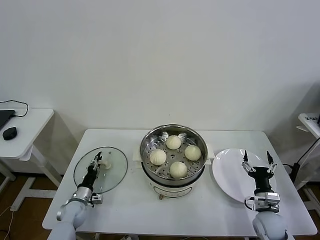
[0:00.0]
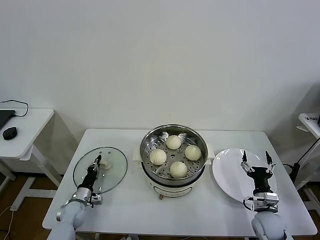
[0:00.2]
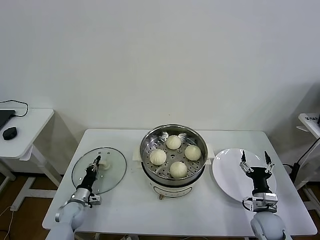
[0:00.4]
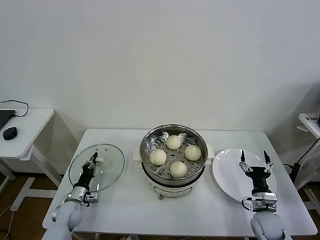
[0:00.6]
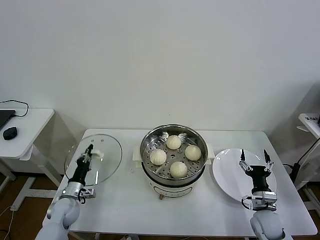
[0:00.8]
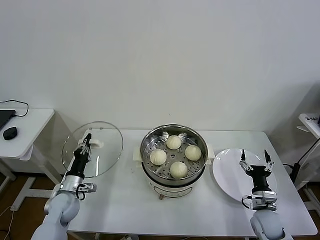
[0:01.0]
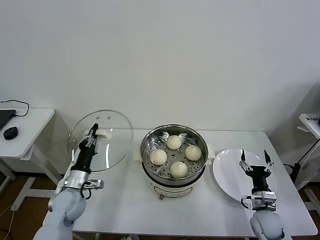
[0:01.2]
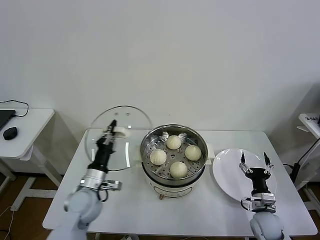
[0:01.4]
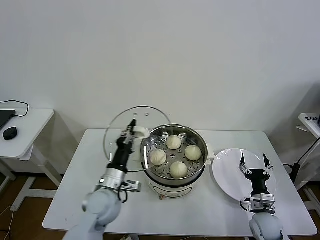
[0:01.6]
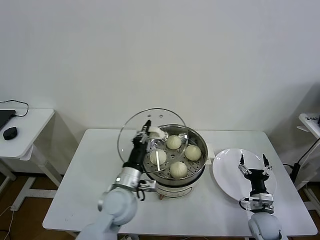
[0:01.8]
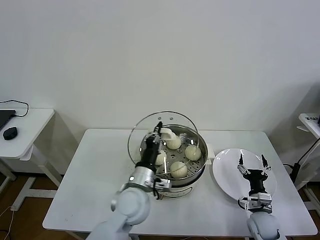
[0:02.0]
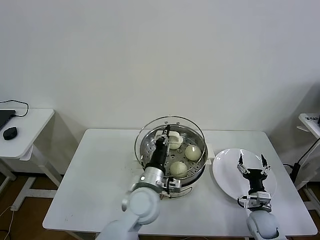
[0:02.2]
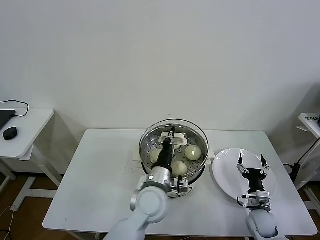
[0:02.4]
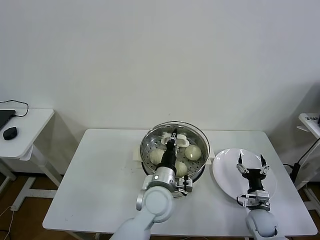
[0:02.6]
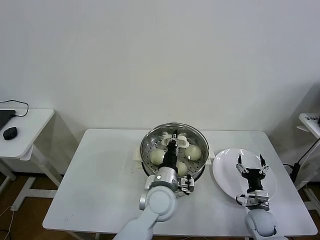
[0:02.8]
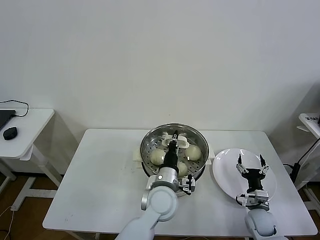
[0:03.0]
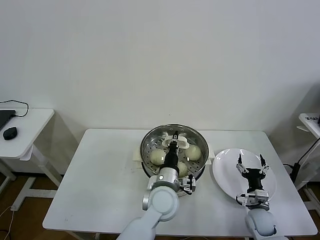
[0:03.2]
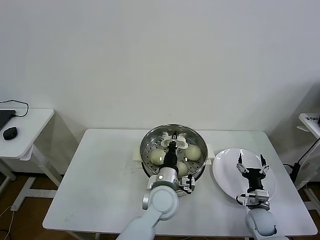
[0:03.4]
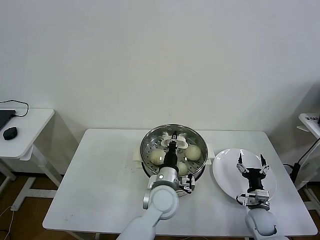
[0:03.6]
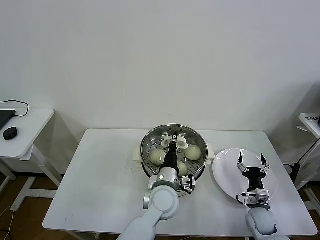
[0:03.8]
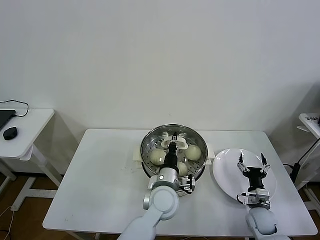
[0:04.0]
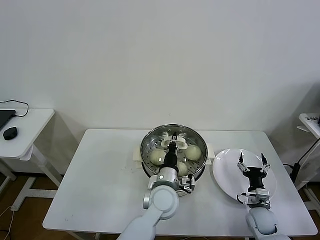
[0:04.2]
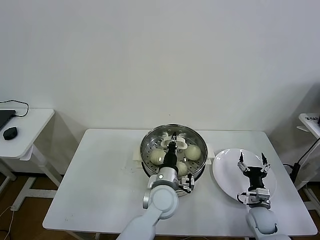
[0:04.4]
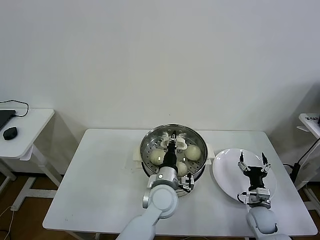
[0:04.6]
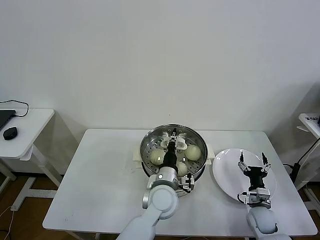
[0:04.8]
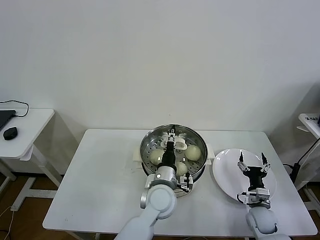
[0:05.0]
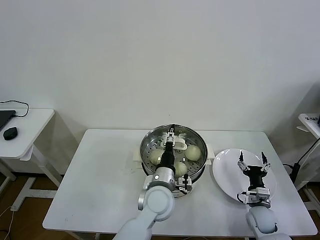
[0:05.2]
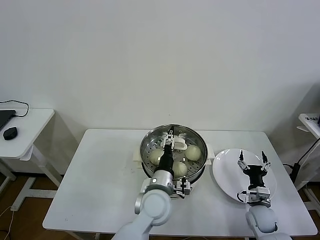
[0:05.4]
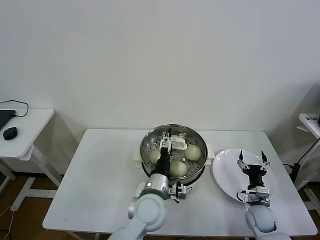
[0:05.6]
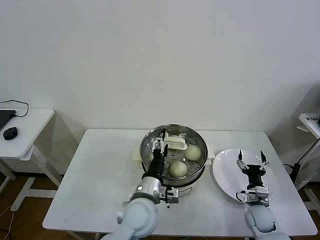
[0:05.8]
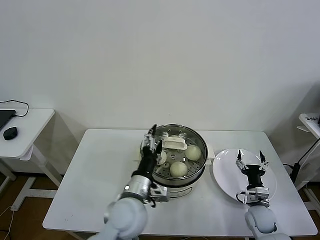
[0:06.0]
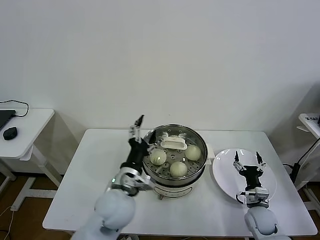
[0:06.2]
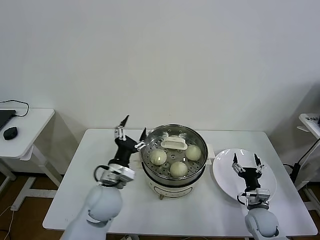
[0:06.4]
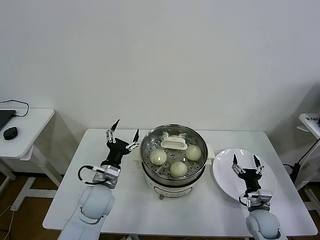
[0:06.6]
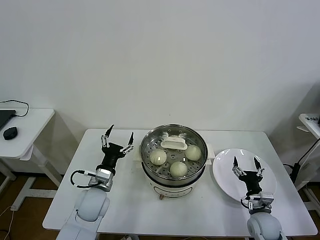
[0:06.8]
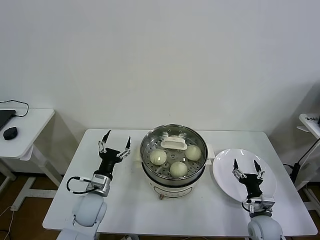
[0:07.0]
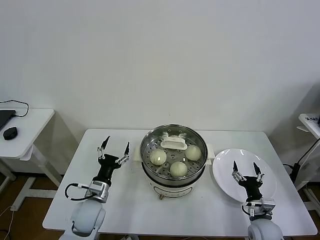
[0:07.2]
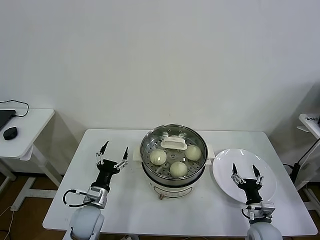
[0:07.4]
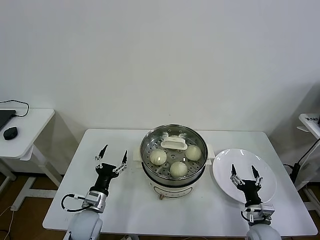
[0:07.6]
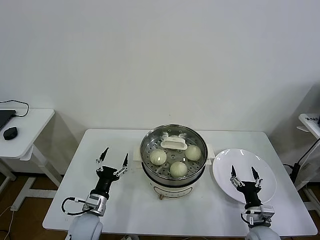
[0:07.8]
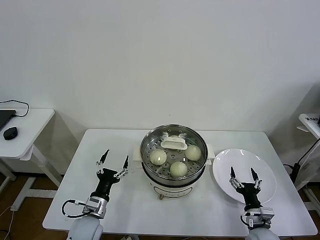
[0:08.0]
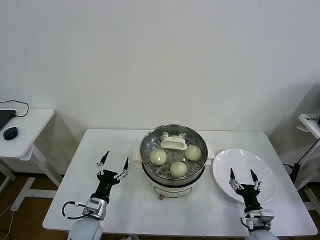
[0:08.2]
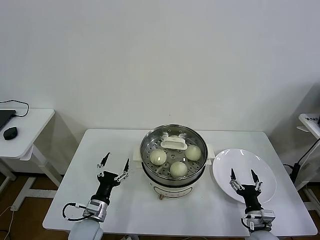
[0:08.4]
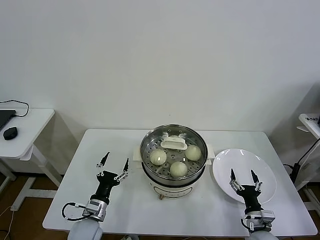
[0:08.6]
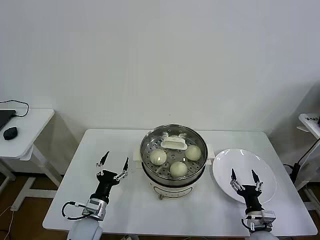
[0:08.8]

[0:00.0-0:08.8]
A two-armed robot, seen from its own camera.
Task of the whole recording: take steamed baozi put them in steamer then cover it.
Step, 0:00.6 to 0:04.6: Place the pot lid on the steamer with left gripper.
0:00.0 to 0:01.4: The left gripper goes some 20 cm upward and to the right, and closes.
0:01.4 to 0:03.0: The left gripper goes approximately 25 cm to the right.
0:03.0 to 0:04.4: The grippers make only small movements.
0:04.4 to 0:05.8: The left gripper moves to the left, approximately 5 cm, and opens up.
0:05.8 to 0:07.4: The left gripper shifts approximately 20 cm to the left and downward. Meanwhile the right gripper goes about 5 cm backward.
0:07.4 to 0:08.8: The grippers move only a little.
